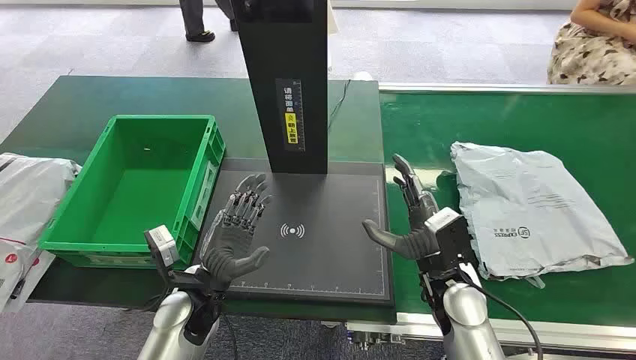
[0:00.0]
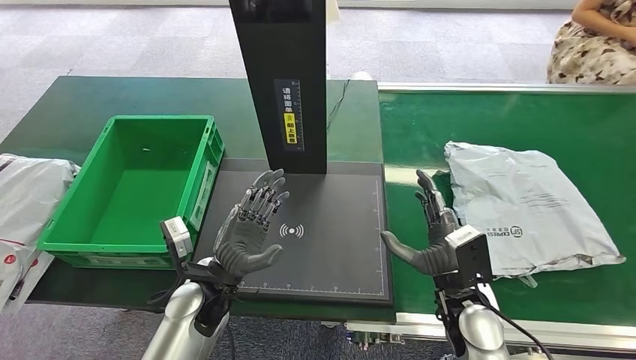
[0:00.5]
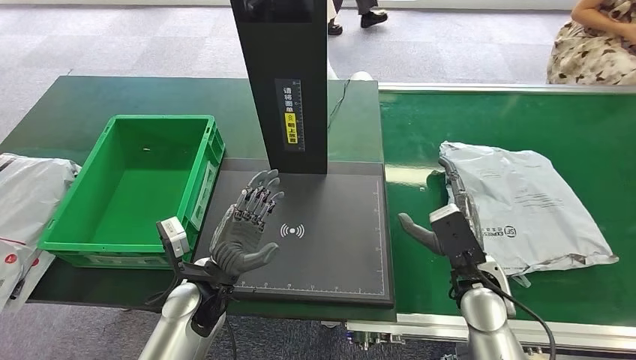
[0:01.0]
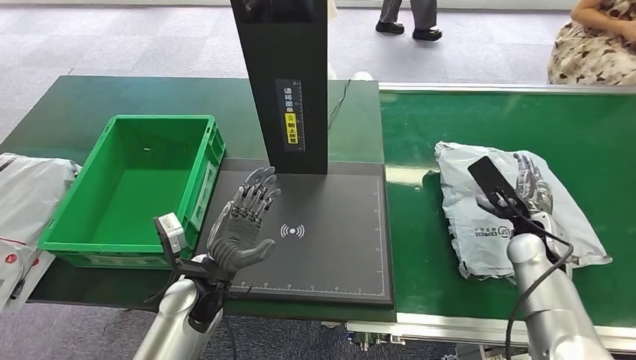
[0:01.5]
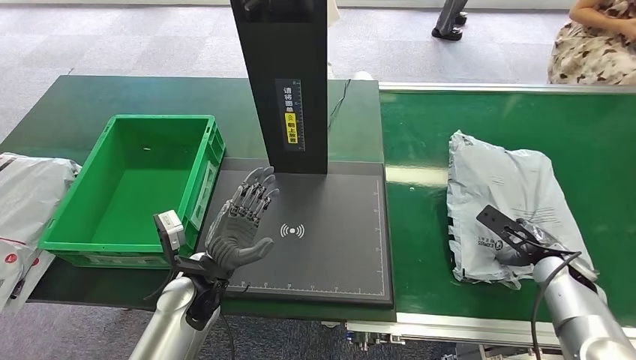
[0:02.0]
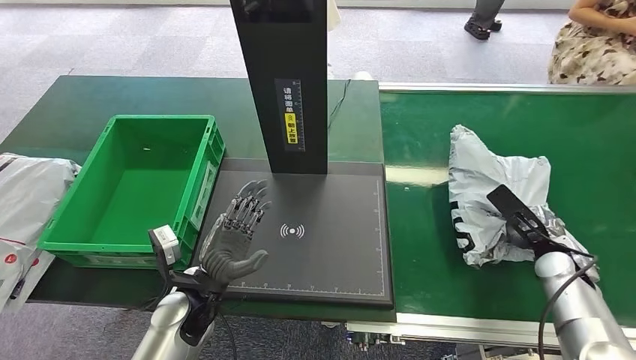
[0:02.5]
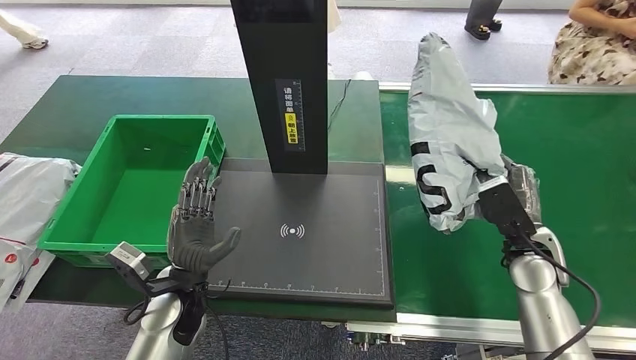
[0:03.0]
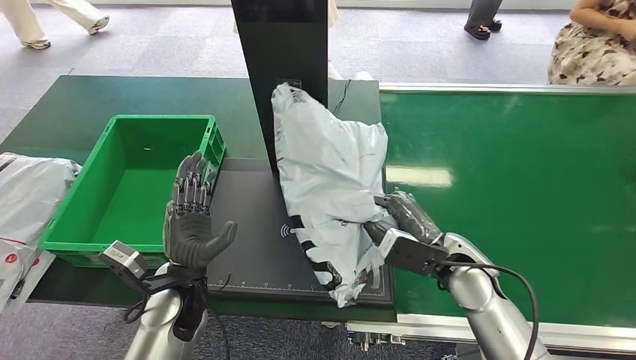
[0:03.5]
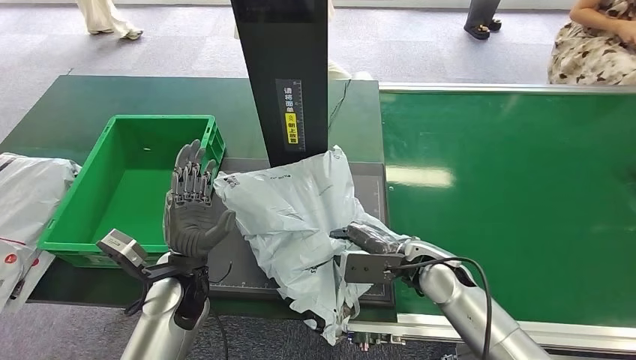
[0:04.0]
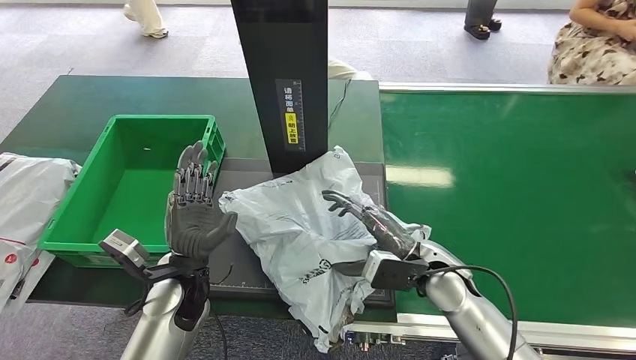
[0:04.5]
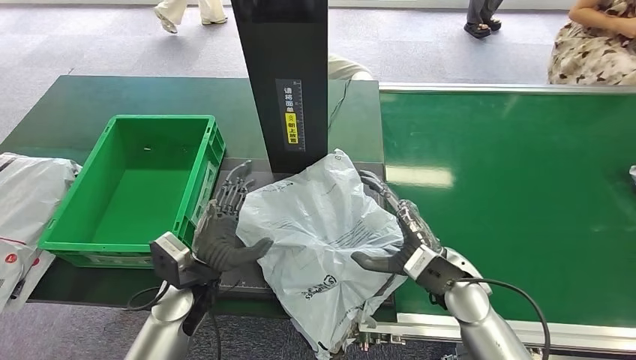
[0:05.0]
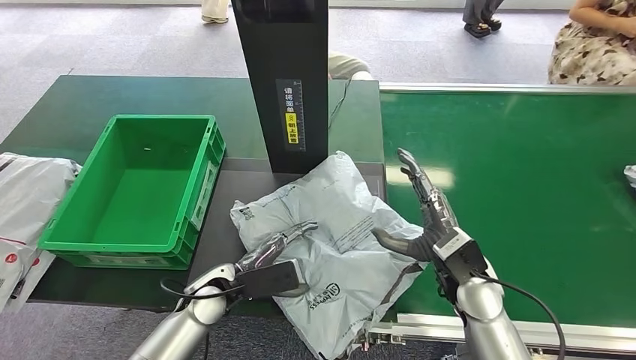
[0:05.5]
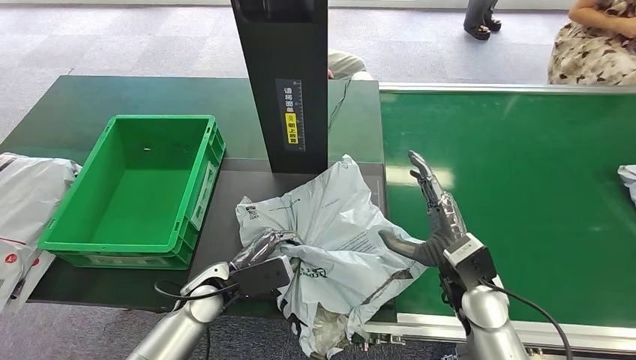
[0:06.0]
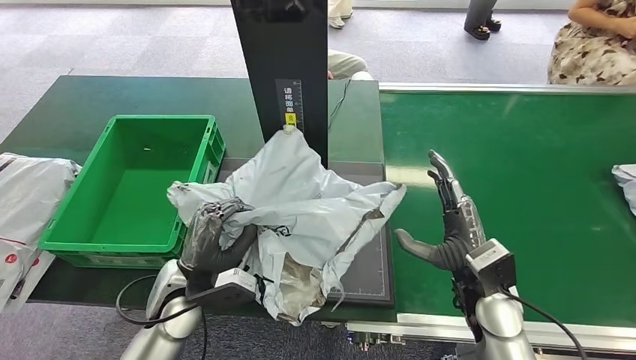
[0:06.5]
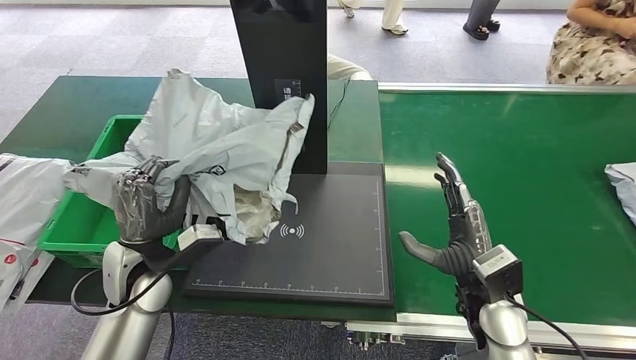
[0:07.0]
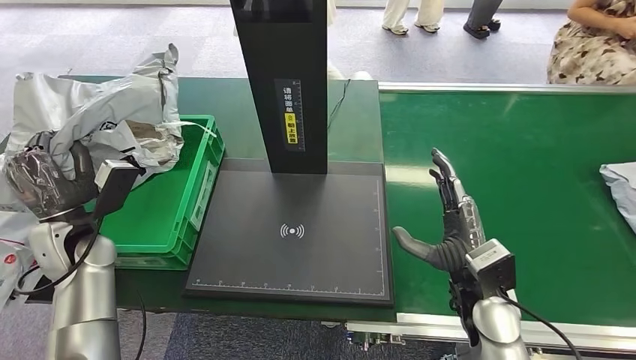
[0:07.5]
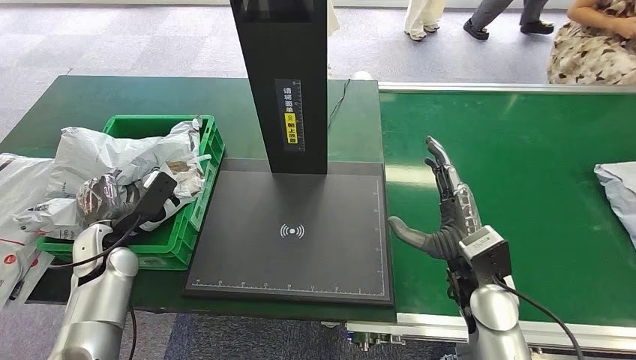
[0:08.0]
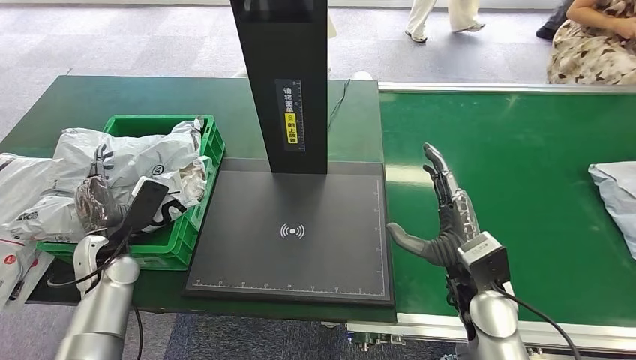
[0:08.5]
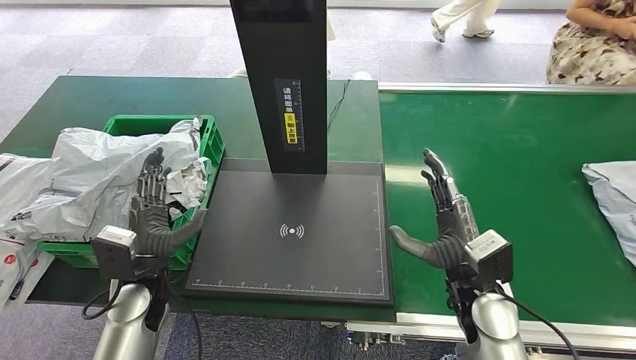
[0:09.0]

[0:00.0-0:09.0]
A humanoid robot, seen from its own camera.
Step, 0:00.0 to 0:03.0: Pick up the package from the conveyor belt.
Step, 0:03.5 to 0:05.0: Place the package onto the inbound machine.
Step, 0:05.5 to 0:06.5: Pick up the package from the inbound machine.
Step, 0:07.0 to 0:09.0: Place the package into the parcel locker.
